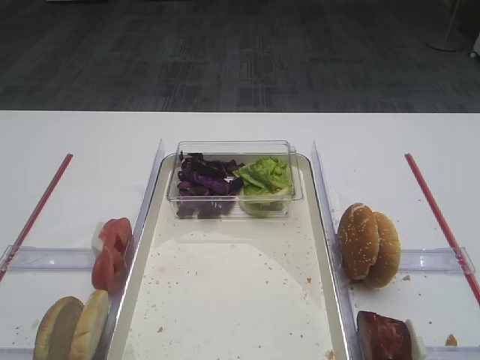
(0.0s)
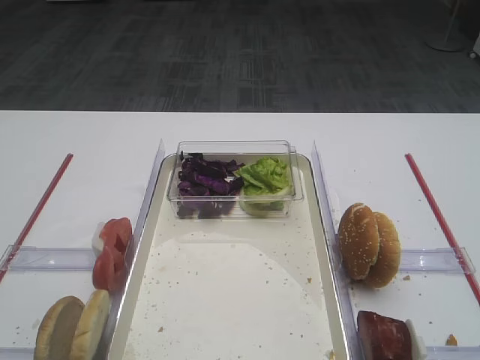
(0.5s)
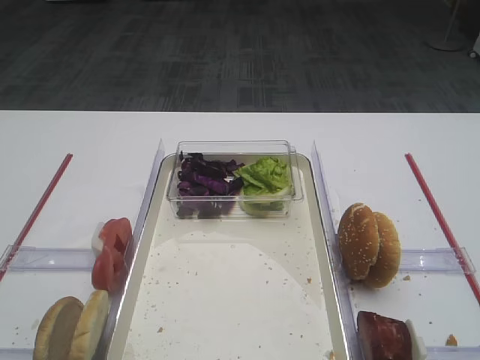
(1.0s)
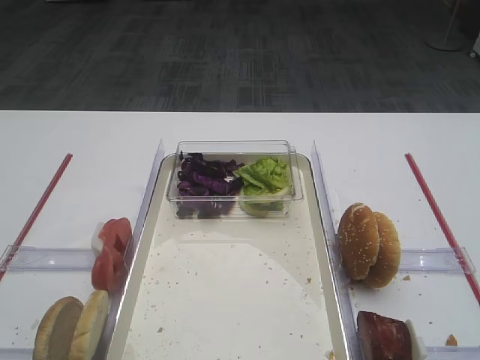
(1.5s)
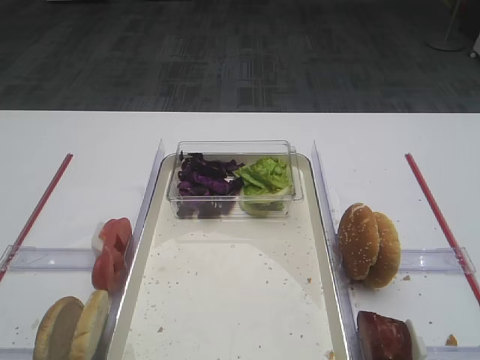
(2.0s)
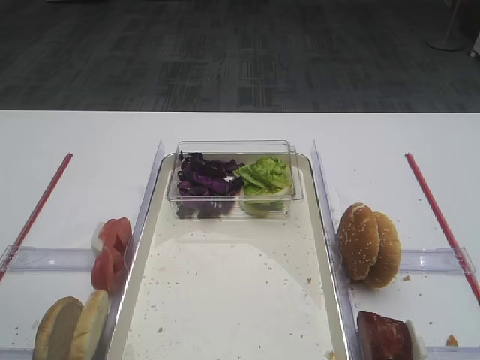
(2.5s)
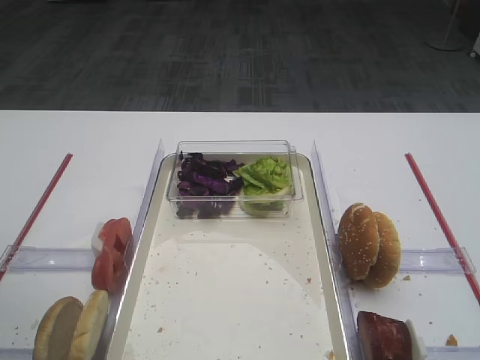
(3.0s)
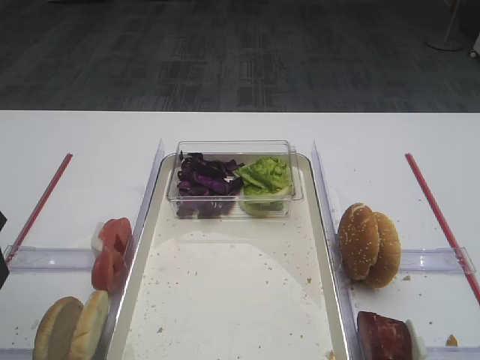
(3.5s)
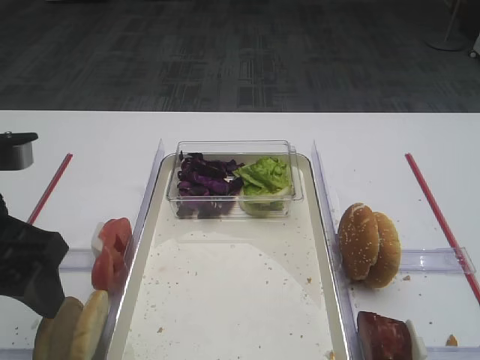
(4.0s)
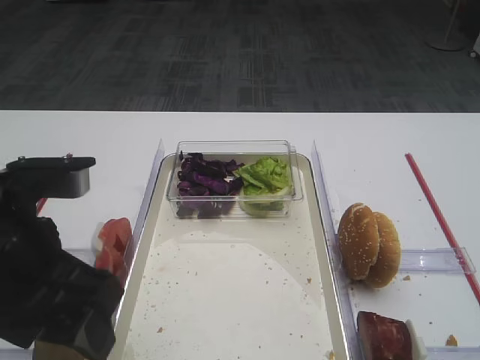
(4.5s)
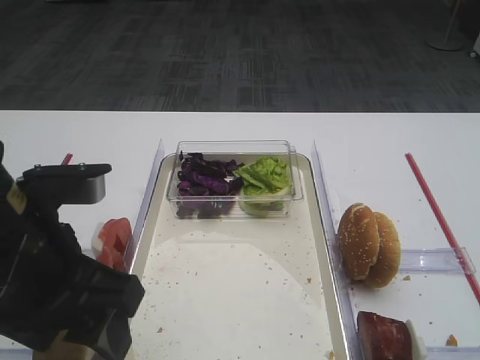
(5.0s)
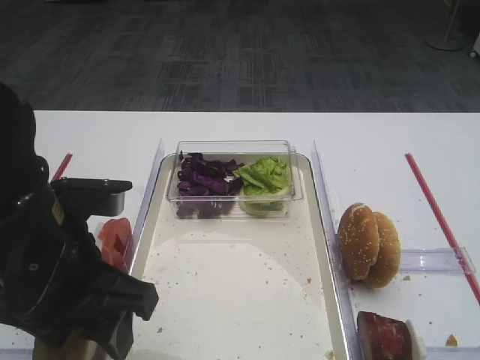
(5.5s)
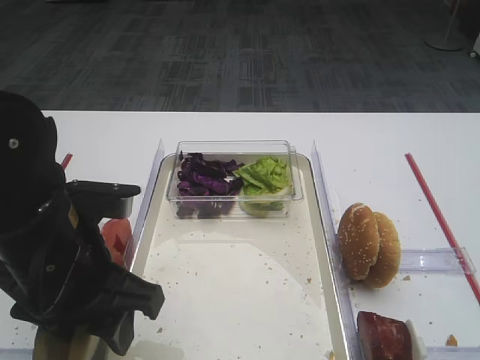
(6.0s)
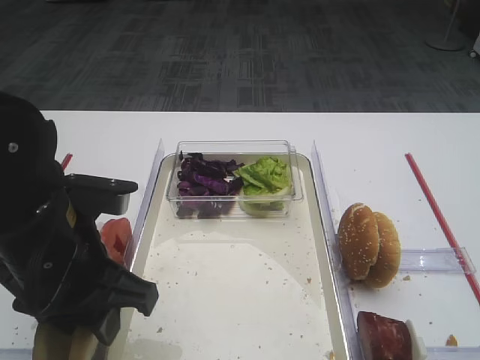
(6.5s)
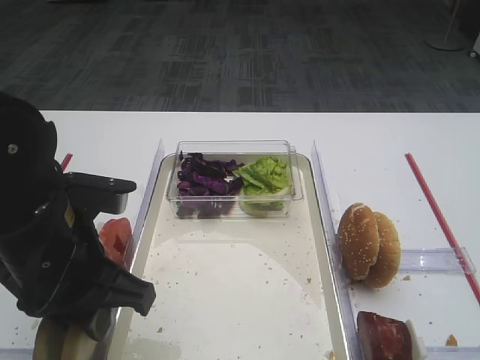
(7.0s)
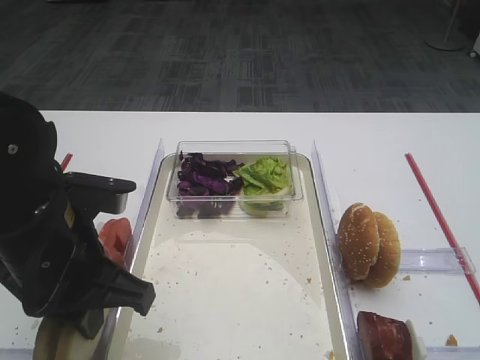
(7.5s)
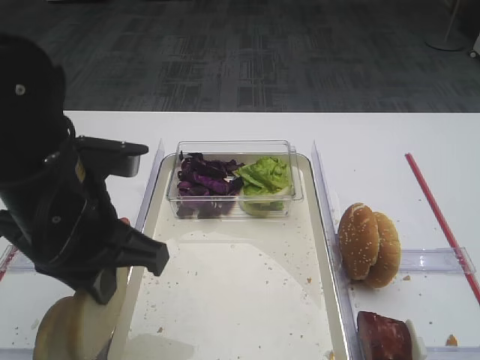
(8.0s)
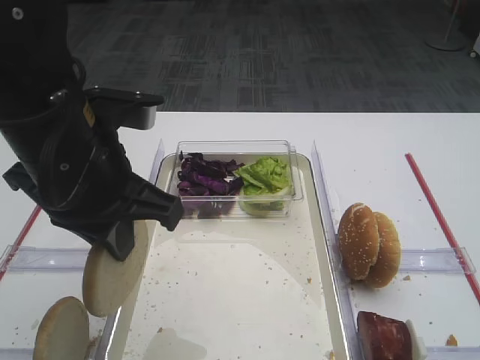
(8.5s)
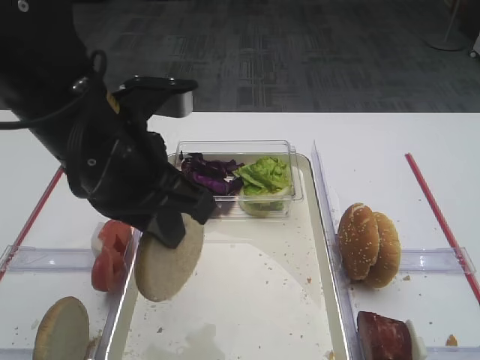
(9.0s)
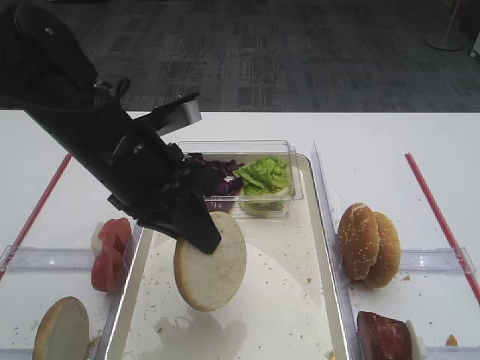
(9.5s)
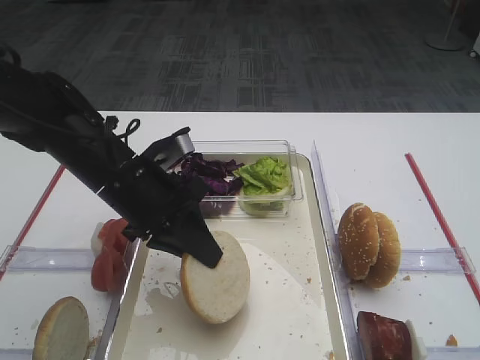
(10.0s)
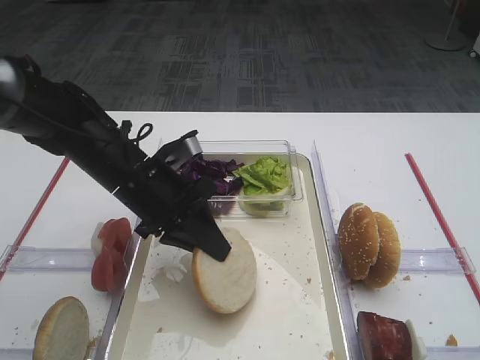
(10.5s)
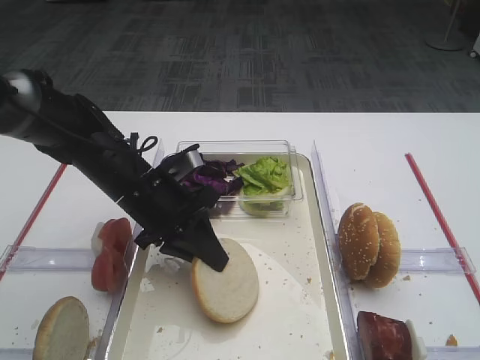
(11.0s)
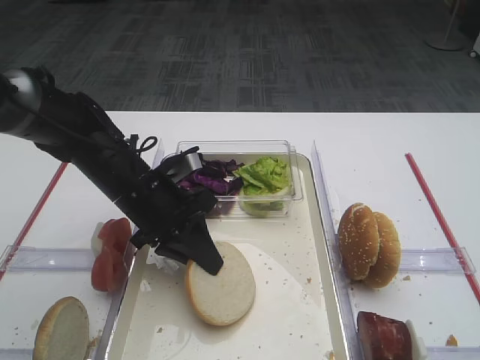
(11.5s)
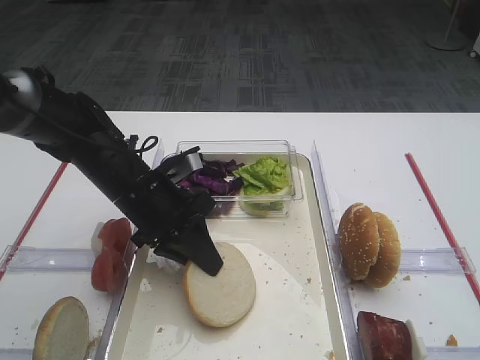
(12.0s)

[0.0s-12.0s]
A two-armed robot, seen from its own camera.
Step, 0.0s to 8.5s: Pick up the bread slice with the left gripper.
2.0s to 4.0s: The left gripper is displaced forward and to the right by some 15 cm.
4.0s to 6.0s: The left gripper is displaced to the right by approximately 10 cm.
6.0s to 8.0s: The left gripper closes up.
8.0s to 10.0s: The left gripper is displaced forward and downward by about 10 cm.
10.0s to 12.0s: The grippers stay close to where they were, moving slightly.

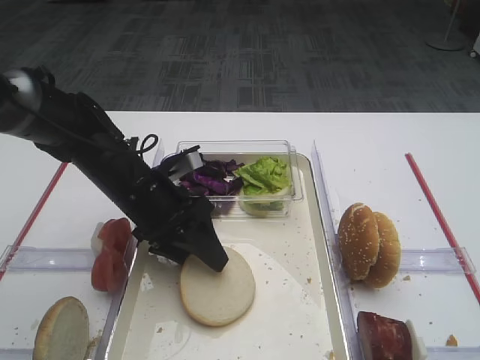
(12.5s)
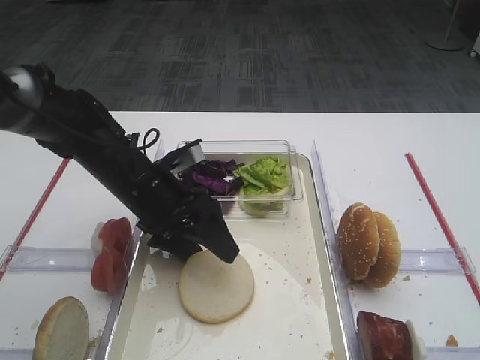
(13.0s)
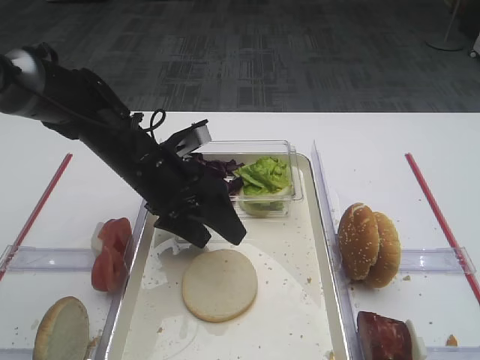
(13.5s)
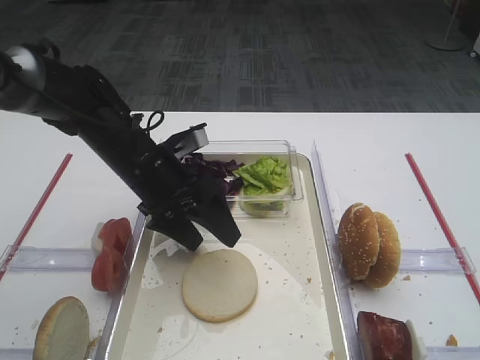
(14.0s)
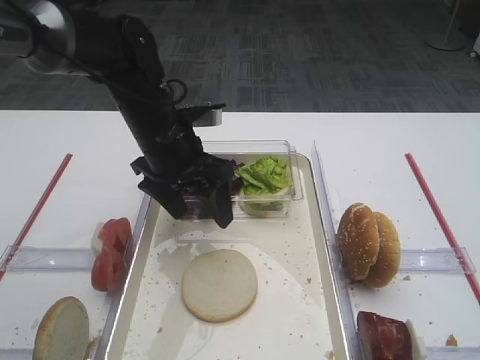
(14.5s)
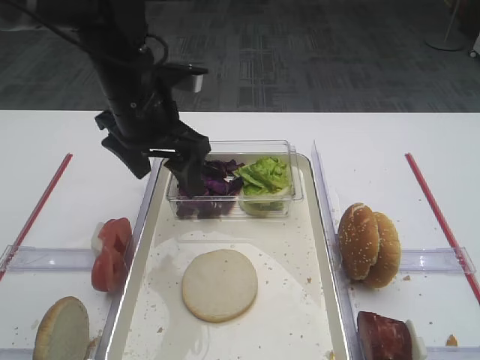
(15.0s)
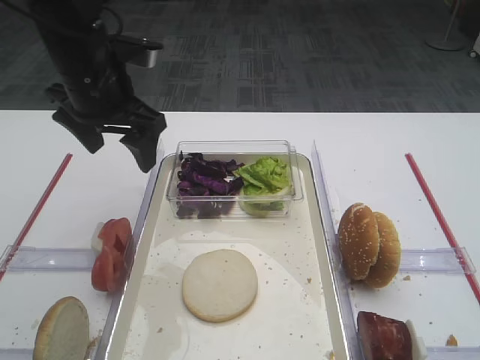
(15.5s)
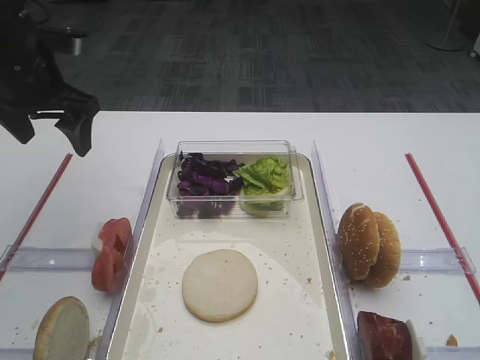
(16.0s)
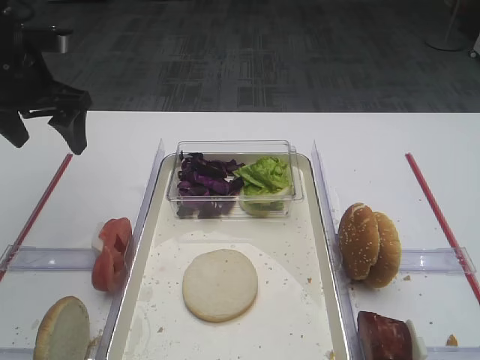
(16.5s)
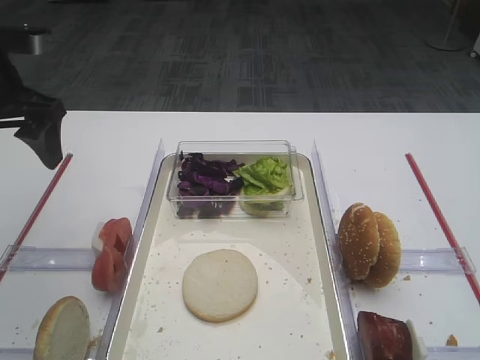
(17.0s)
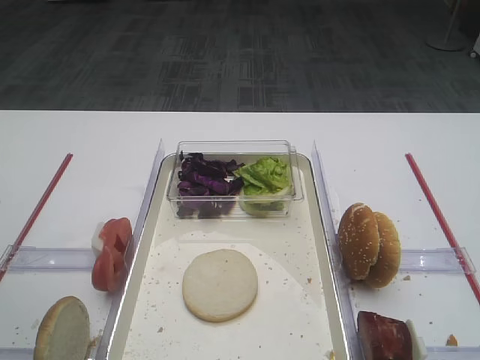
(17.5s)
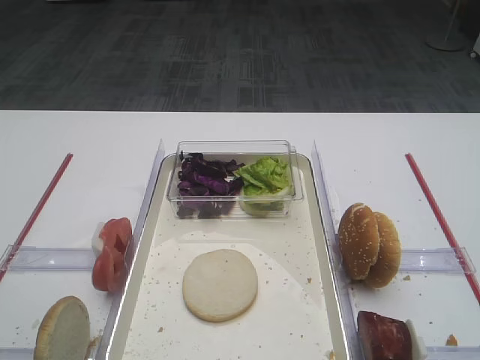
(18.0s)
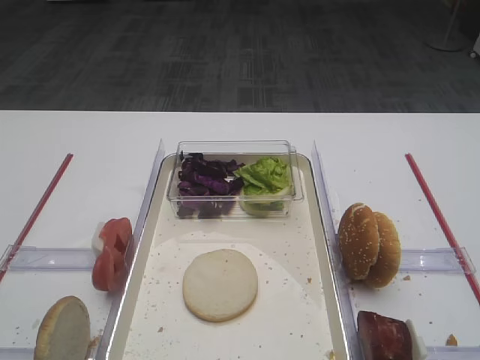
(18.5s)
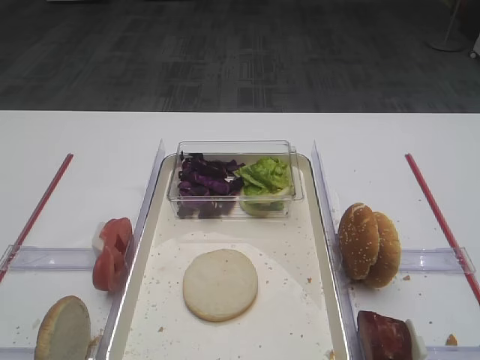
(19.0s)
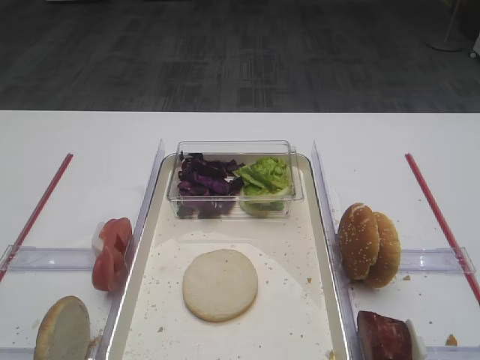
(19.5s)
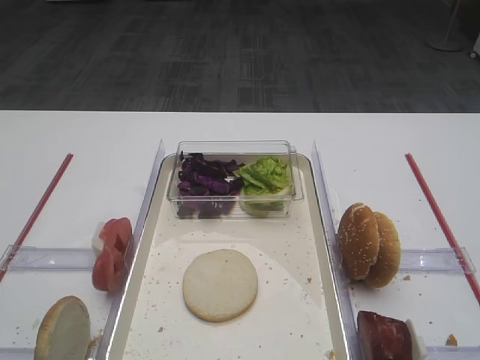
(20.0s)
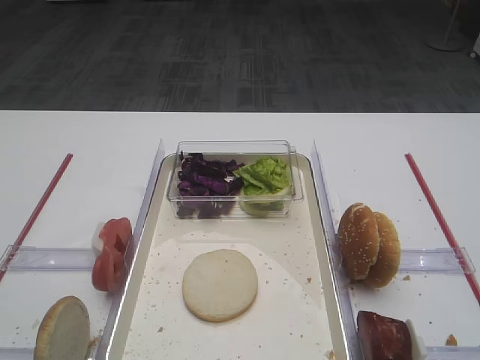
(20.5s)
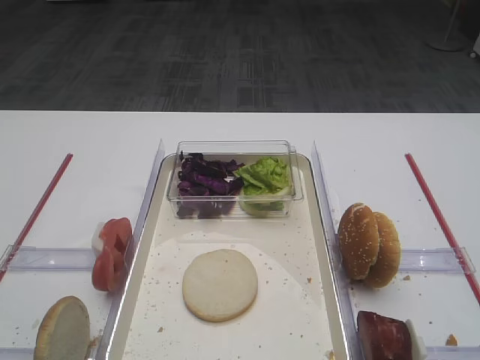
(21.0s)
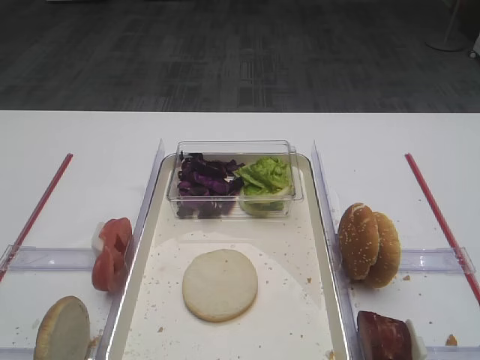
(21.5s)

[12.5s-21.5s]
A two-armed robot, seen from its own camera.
Step, 12.5s to 14.5s: Place the bread slice on the tray with the left gripper.
12.5s to 14.5s: The left gripper is displaced upward by about 5 cm, and opens its fingers.
14.5s to 17.0s: The left gripper is displaced to the left and upward by some 20 cm.
17.0s to 19.5s: The left gripper is displaced backward by some 35 cm.
19.5s to 21.5s: The two grippers keep their place.
